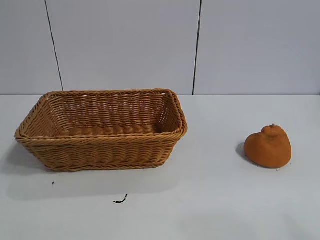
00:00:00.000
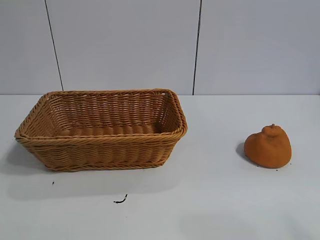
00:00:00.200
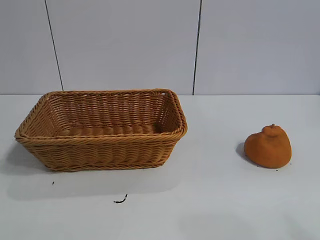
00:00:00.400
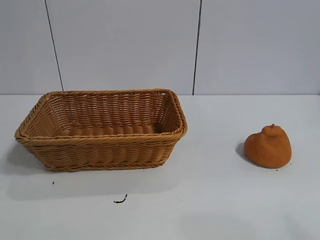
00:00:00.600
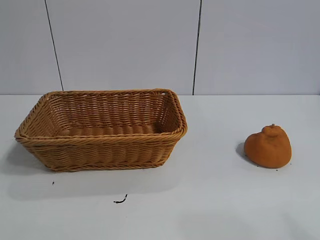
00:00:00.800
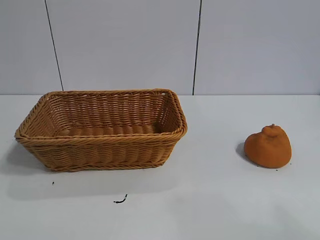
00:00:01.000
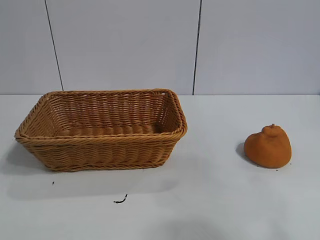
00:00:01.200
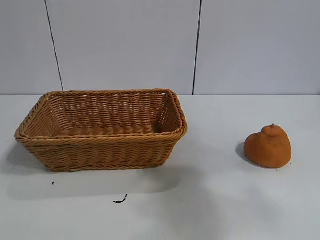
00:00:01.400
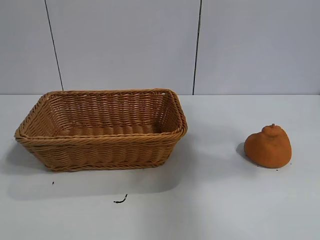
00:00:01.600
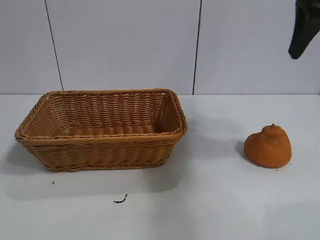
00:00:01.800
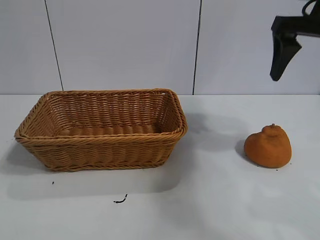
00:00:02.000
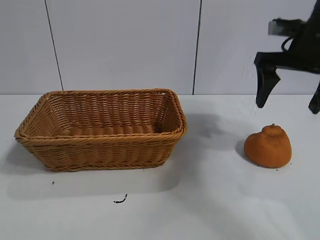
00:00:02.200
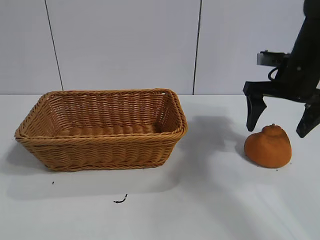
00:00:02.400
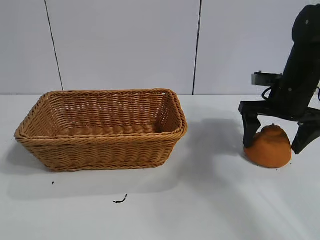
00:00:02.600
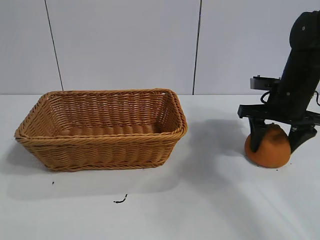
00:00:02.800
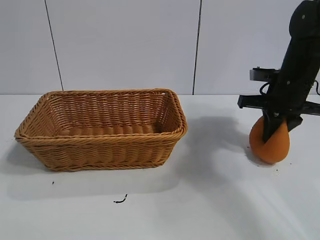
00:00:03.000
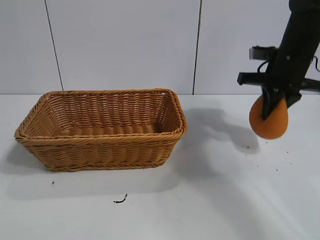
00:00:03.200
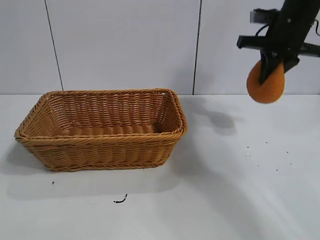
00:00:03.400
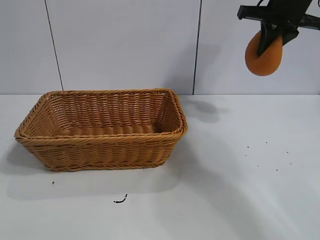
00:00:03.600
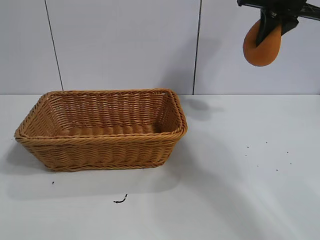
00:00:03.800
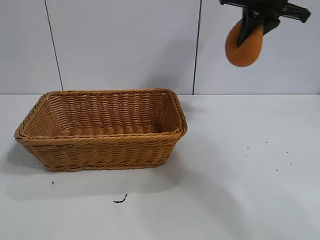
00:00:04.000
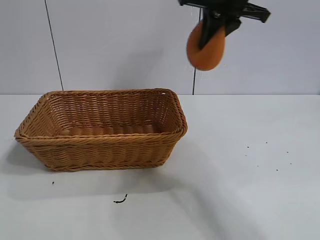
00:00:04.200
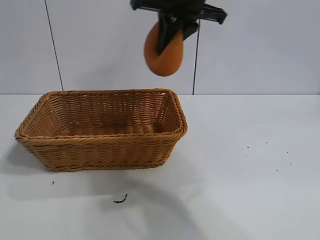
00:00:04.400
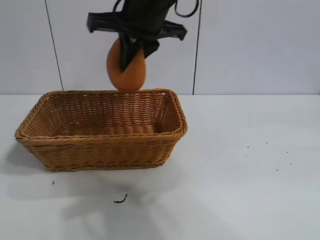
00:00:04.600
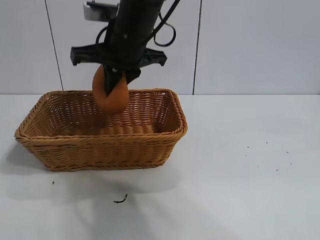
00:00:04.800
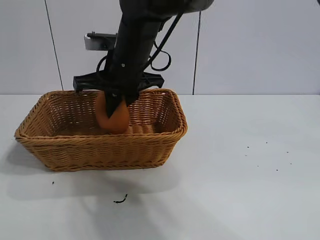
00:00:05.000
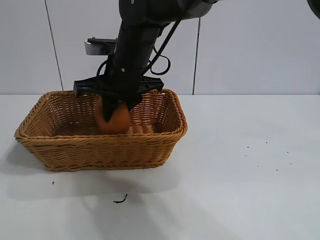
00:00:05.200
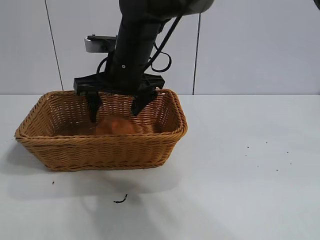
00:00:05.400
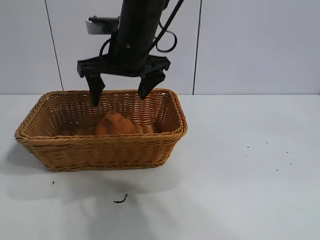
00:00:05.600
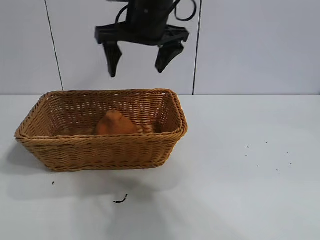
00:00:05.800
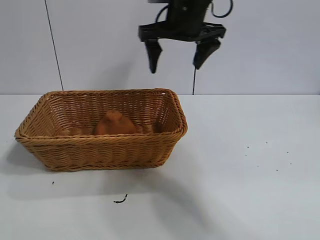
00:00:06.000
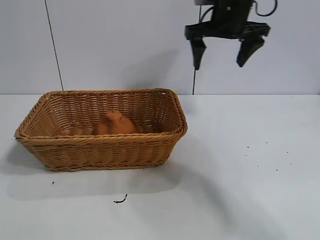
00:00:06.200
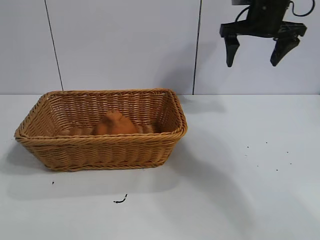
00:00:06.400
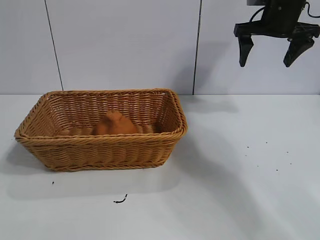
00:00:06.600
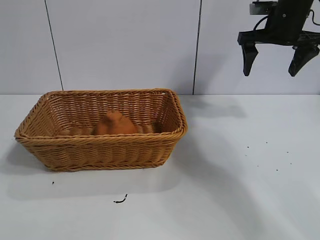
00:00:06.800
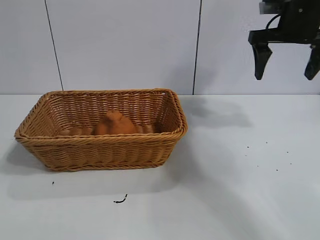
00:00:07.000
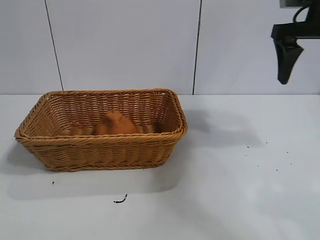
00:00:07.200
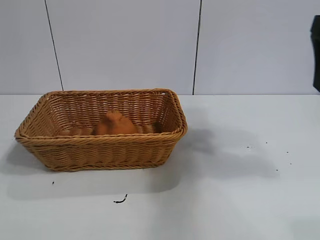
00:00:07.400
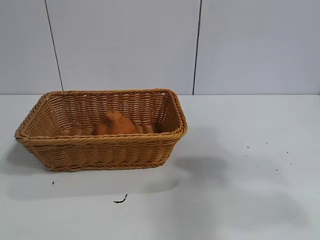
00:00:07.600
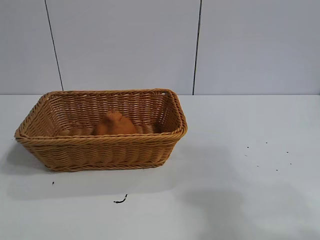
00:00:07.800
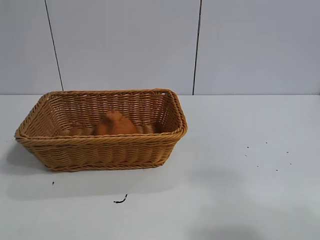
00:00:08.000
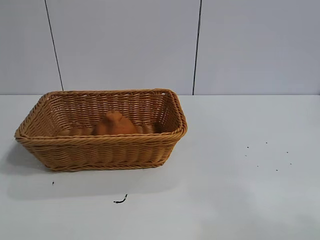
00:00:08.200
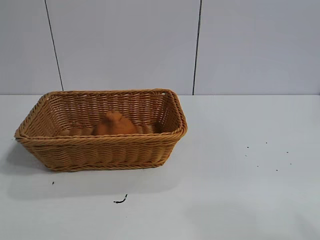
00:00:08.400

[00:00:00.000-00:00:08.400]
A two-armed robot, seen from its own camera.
Task of the whole recording: pick up the orange and put it into the basket.
Step, 00:00:00.600 to 00:00:02.800: Grasp the orange with right gripper.
Step, 00:00:03.000 to 00:00:05.200: Place the orange in the basket with right gripper.
